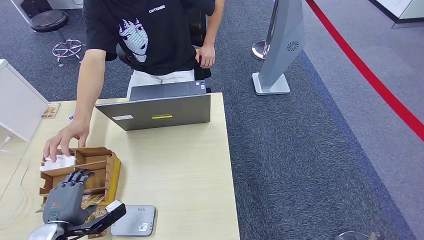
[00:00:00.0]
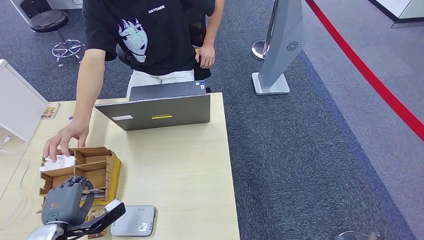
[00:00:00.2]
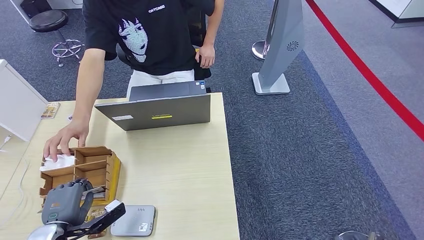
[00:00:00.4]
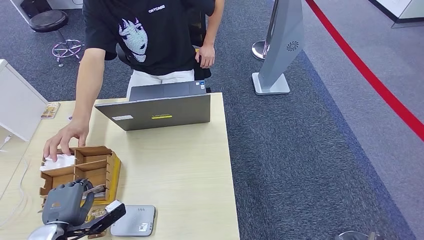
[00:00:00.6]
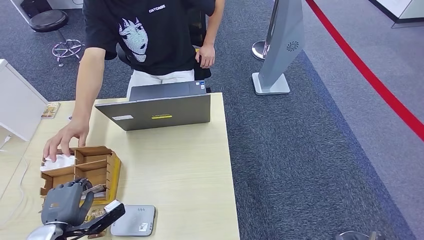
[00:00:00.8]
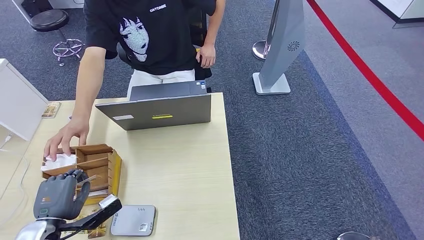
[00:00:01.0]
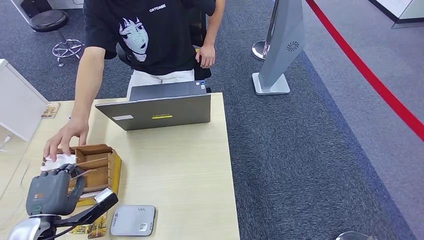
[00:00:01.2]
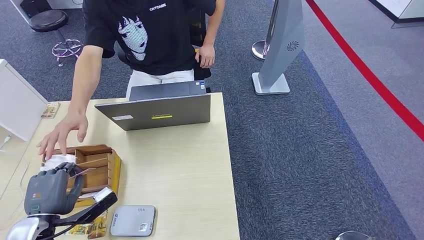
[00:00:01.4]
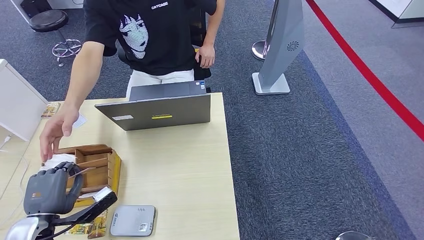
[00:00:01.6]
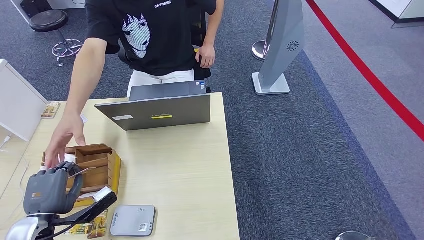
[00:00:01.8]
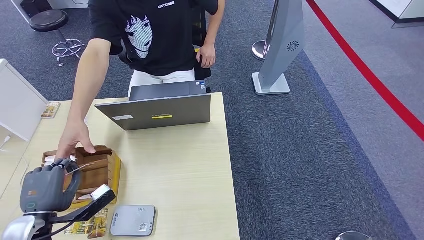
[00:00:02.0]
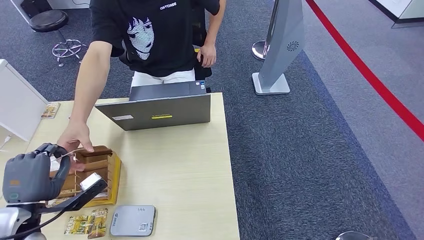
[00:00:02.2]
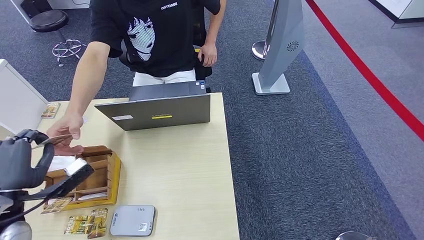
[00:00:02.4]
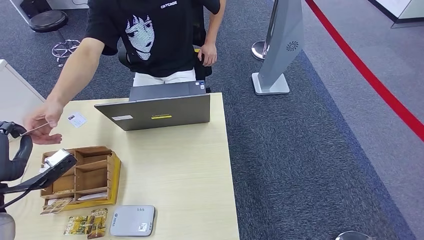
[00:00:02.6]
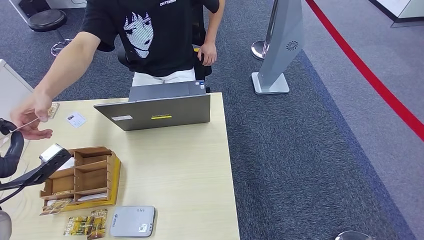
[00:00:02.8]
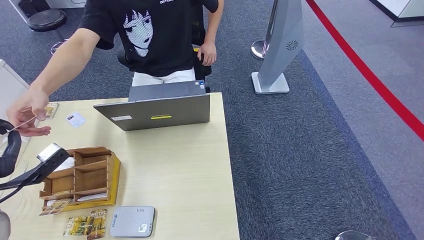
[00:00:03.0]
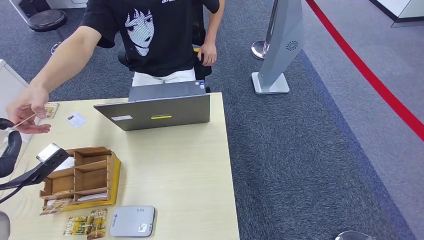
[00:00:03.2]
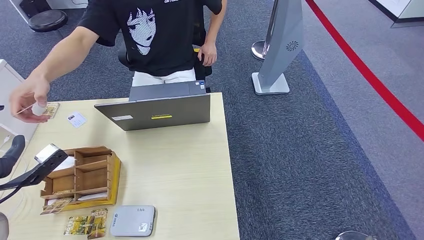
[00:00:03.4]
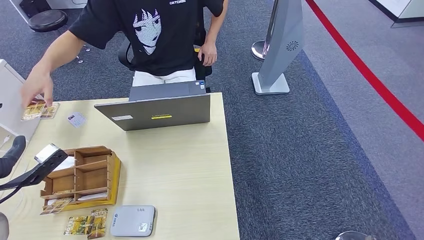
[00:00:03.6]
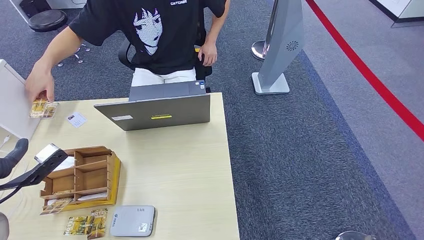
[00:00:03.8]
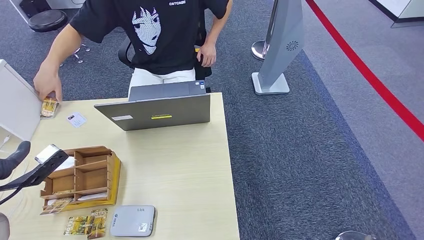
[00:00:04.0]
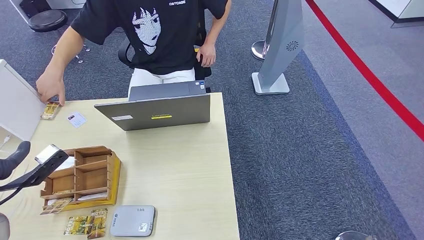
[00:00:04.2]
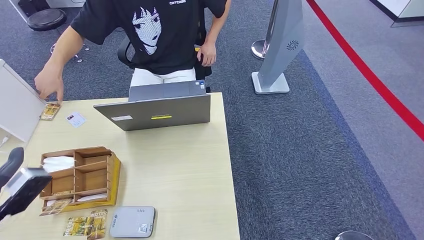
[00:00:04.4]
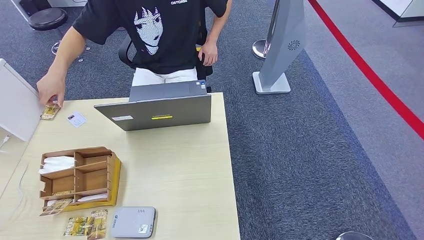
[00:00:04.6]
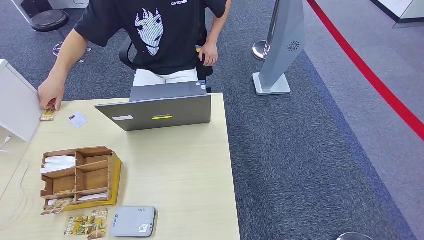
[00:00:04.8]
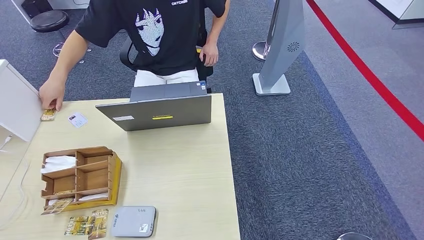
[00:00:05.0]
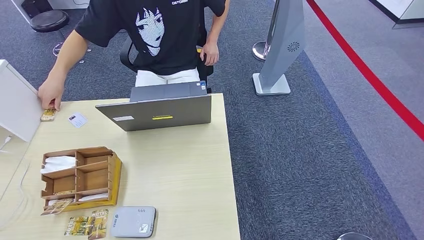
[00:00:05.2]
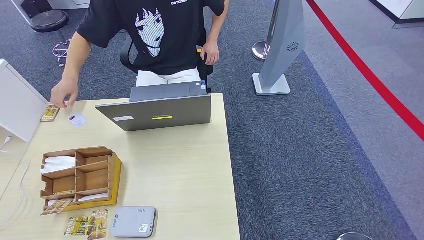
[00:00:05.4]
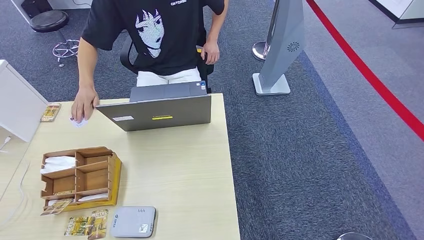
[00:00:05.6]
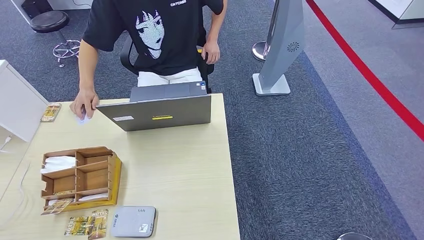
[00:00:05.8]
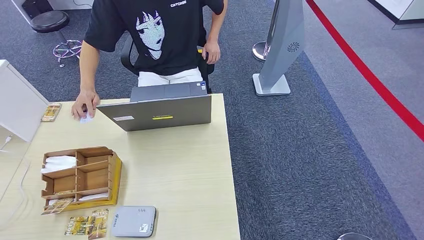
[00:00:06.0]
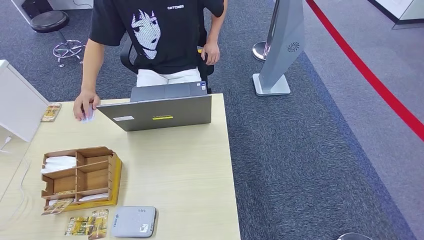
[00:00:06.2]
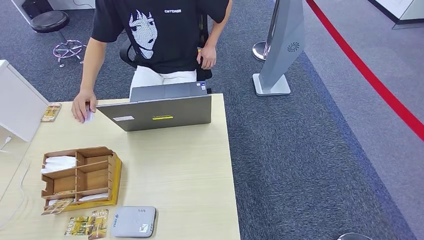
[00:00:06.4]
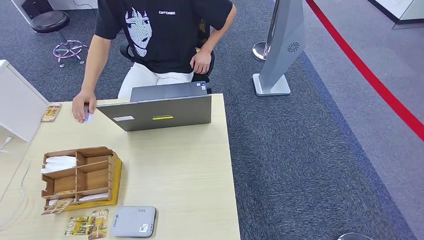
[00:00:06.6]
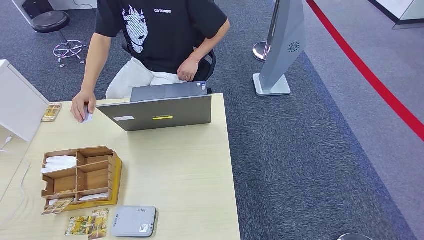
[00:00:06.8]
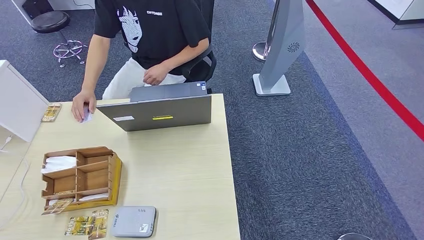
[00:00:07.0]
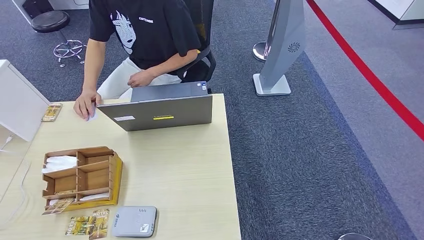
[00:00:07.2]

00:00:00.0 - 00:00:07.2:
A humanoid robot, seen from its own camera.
Step, 00:00:00.0 - 00:00:02.8: Pick up the room key from the key card box.
Step, 00:00:03.0 - 00:00:07.2: Hand the room key to the person.
00:00:00.0 - 00:00:01.4: There are only small adjustments of the hands.
00:00:01.4 - 00:00:02.8: The left hand heads upward, to the left and forward, covering approximately 15 cm.
00:00:04.4 - 00:00:05.8: The left hand is displaced backward and downward by some 20 cm.
00:00:05.8 - 00:00:07.2: The left hand heads downward, covering roughly 25 cm.
